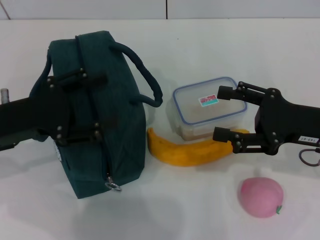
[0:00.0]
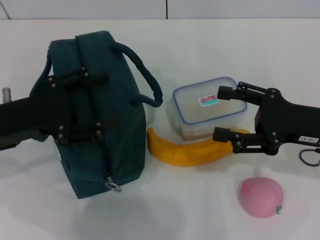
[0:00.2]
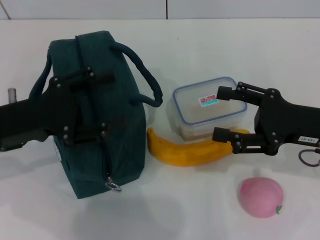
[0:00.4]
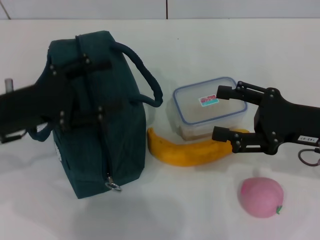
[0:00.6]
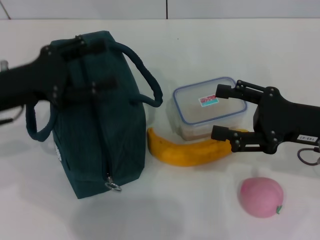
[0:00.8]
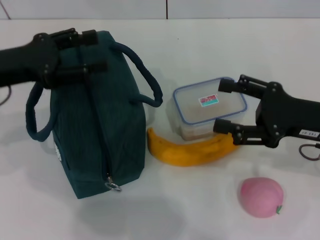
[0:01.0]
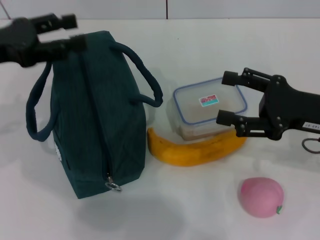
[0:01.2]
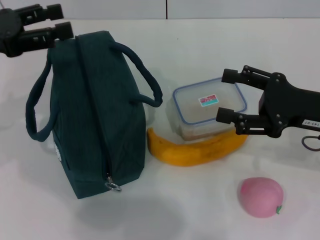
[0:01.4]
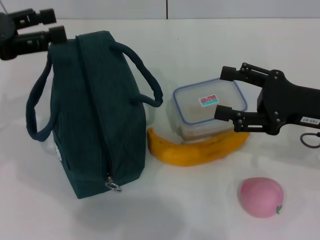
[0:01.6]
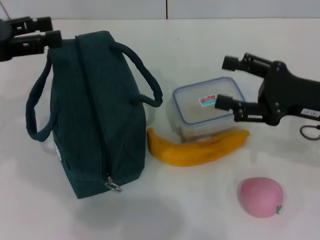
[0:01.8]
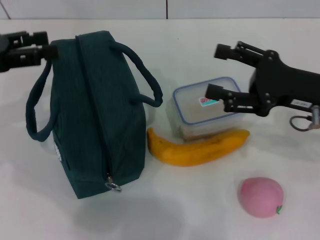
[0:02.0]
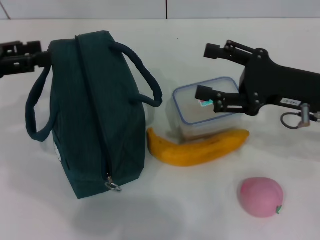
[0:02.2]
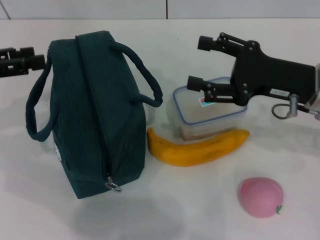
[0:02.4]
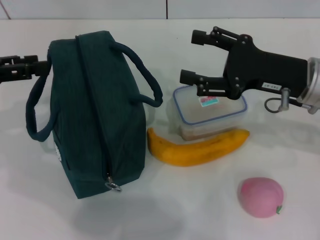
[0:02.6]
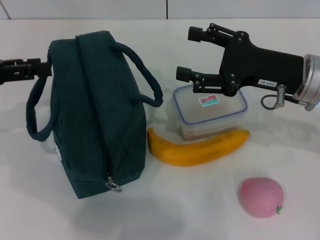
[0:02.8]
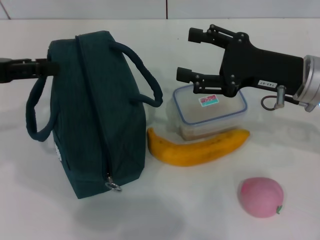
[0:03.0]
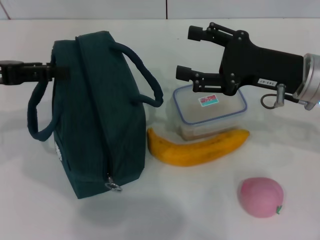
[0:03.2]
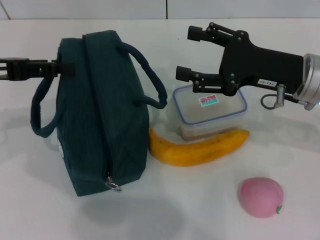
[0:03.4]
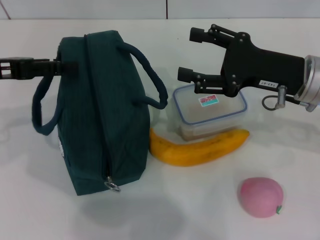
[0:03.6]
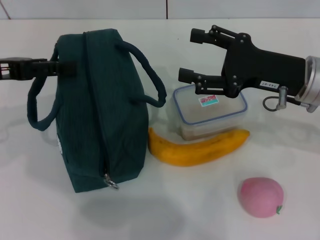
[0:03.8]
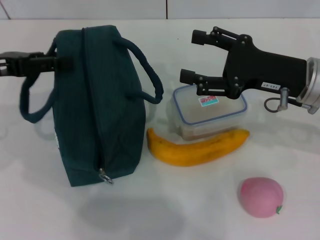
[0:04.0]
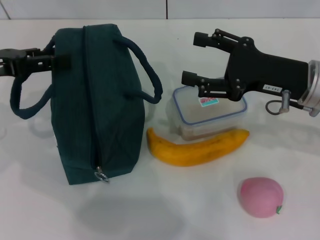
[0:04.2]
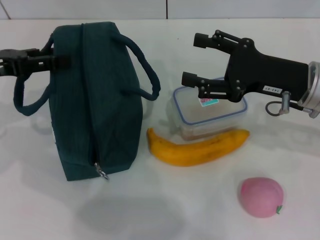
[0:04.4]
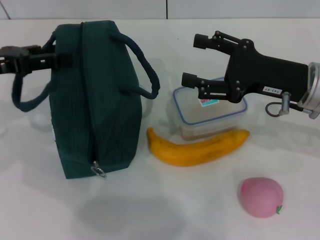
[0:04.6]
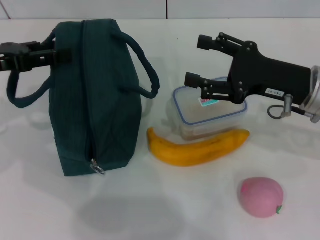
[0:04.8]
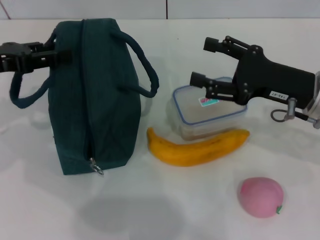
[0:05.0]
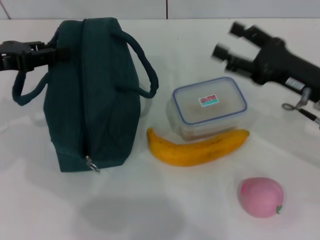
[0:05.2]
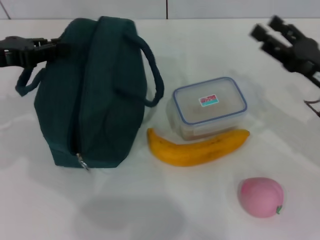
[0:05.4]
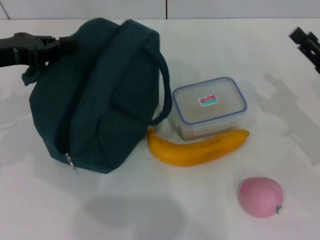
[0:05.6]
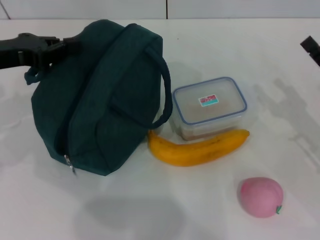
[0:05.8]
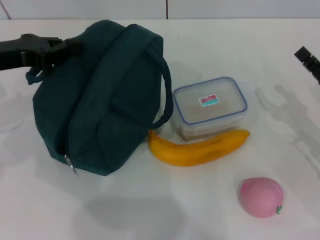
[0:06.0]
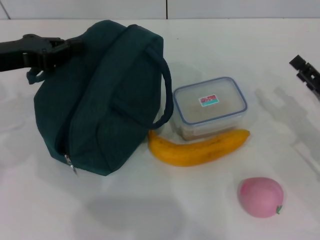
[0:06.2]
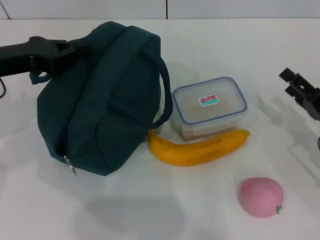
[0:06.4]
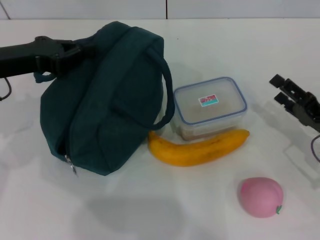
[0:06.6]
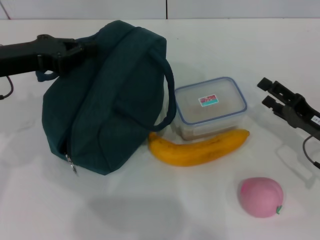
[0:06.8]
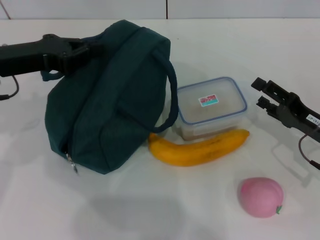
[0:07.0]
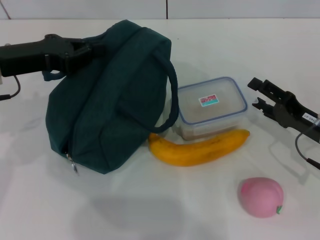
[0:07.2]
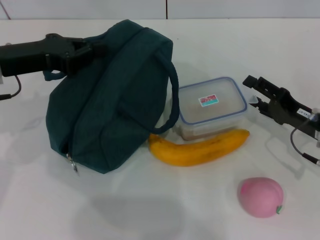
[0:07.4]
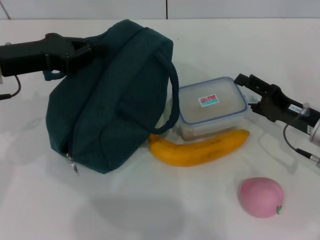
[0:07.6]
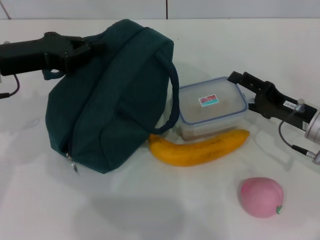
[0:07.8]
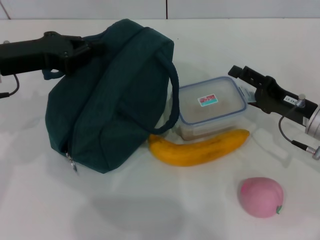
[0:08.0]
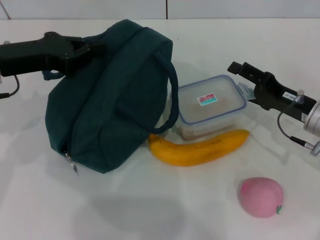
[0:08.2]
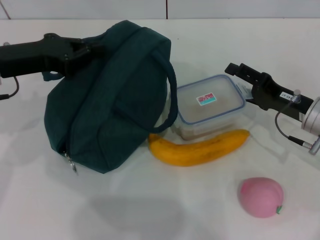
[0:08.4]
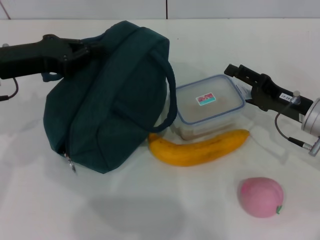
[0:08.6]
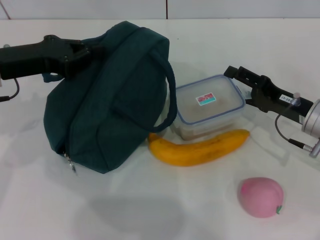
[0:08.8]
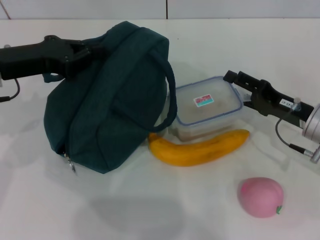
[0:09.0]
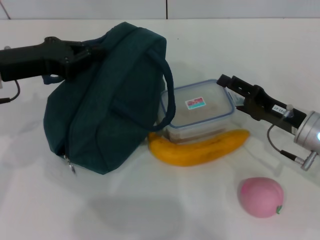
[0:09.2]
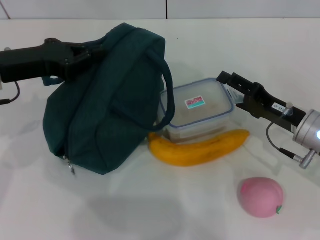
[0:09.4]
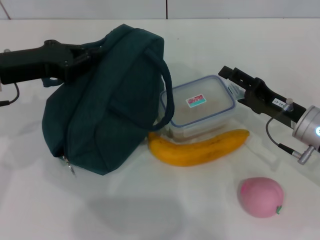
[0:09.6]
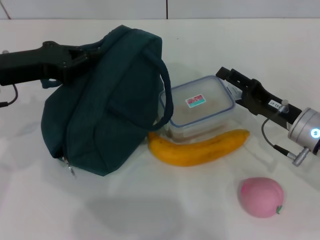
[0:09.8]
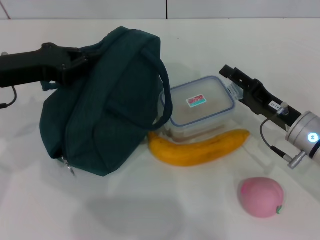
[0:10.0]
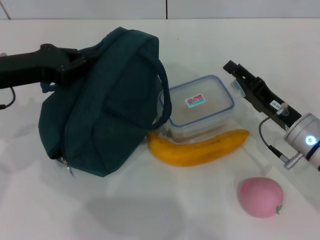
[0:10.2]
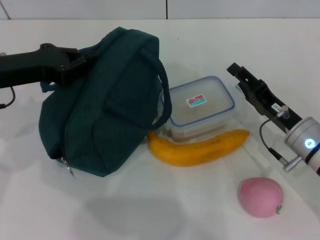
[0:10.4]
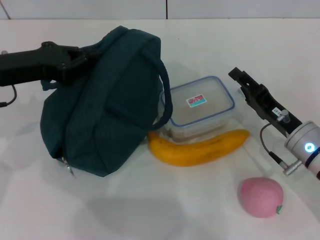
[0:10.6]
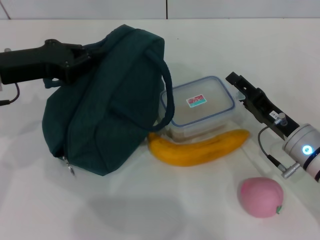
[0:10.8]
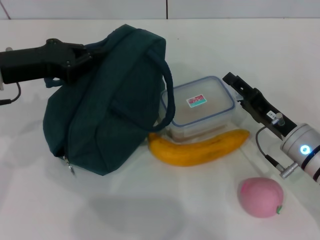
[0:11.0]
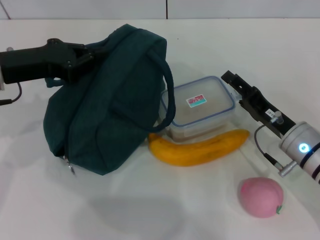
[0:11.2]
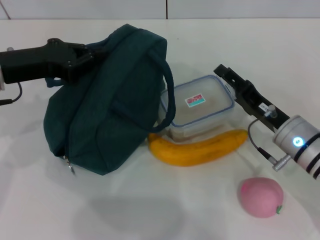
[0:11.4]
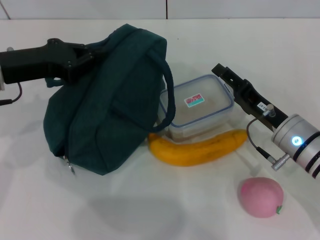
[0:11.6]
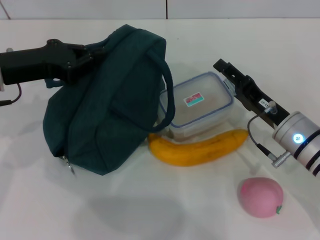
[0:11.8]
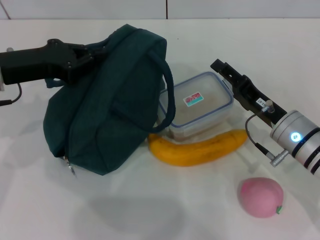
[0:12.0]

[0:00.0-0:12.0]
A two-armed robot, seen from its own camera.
Step, 0:00.0 to 0:07.0: Hold the lunch bag with your left hand.
0:00.0 to 0:01.6: The left gripper travels upward, forward and to the left by about 10 cm.
0:01.6 to 0:03.0: The right gripper ends up about 5 cm from where it was.
0:03.0 to 0:04.4: There are only small adjustments of the grippers.
0:04.4 to 0:06.0: The right gripper shifts approximately 15 cm to the right, downward and backward. The left gripper closes up.
0:06.0 to 0:07.6: The right gripper changes place by roughly 5 cm.
0:07.6 to 0:10.4: The grippers make only small movements.
0:10.4 to 0:12.0: The grippers stay close to where they were, moving slightly.

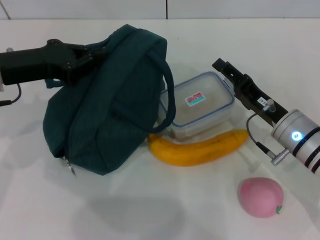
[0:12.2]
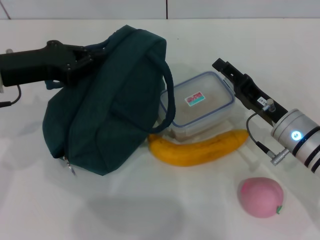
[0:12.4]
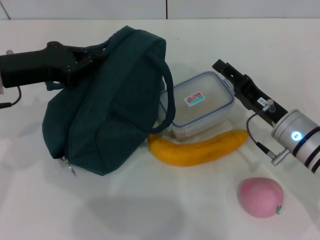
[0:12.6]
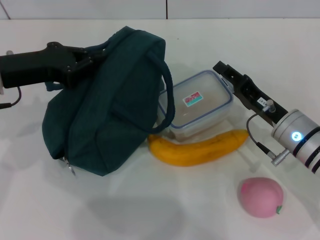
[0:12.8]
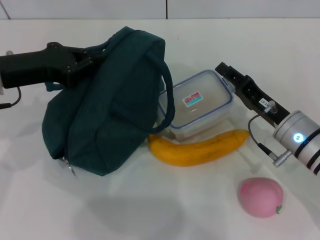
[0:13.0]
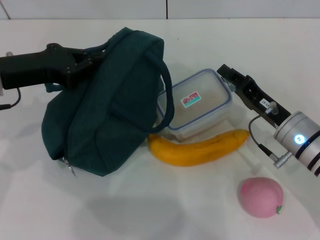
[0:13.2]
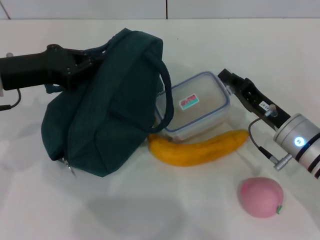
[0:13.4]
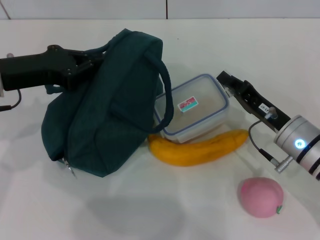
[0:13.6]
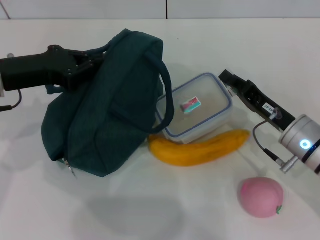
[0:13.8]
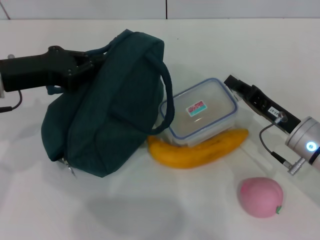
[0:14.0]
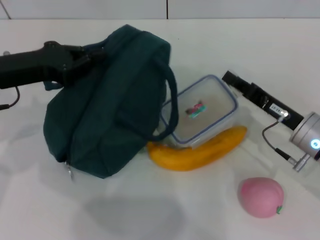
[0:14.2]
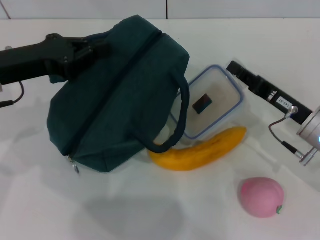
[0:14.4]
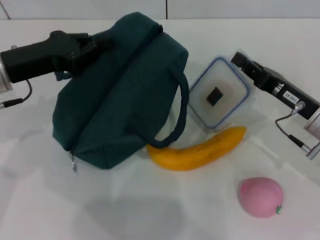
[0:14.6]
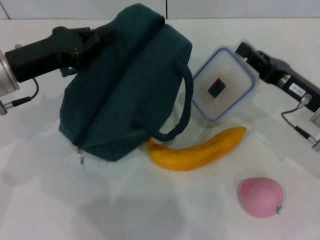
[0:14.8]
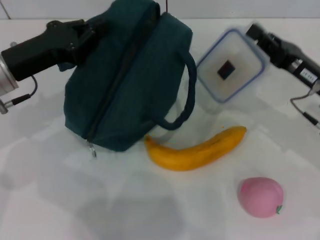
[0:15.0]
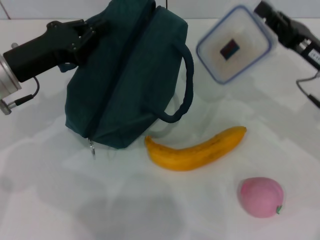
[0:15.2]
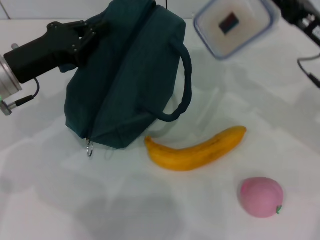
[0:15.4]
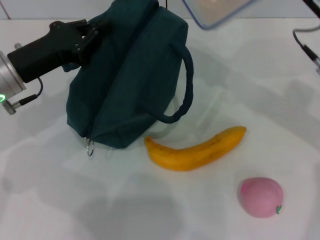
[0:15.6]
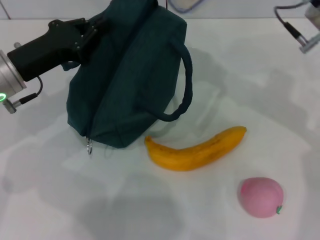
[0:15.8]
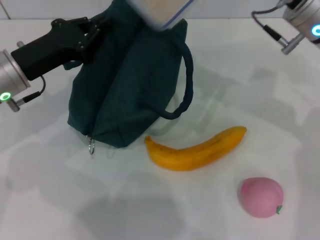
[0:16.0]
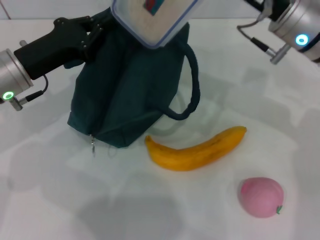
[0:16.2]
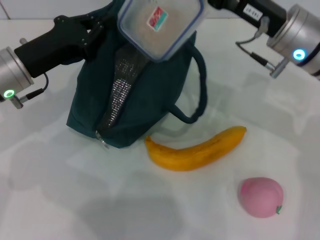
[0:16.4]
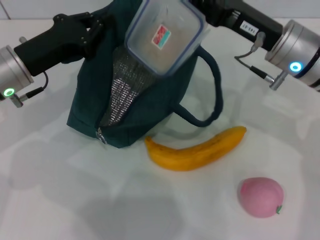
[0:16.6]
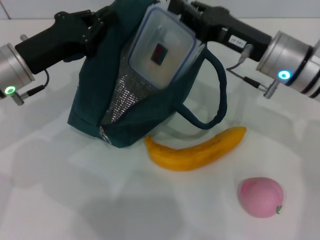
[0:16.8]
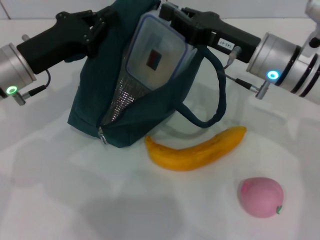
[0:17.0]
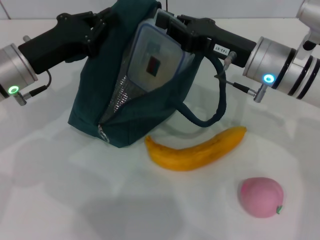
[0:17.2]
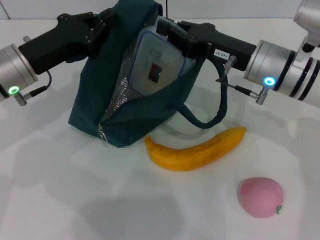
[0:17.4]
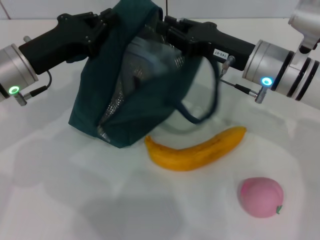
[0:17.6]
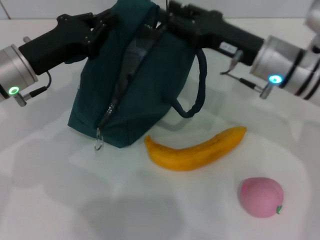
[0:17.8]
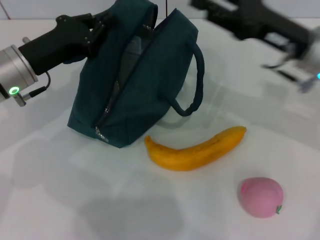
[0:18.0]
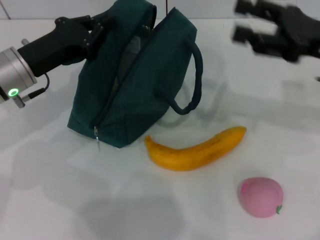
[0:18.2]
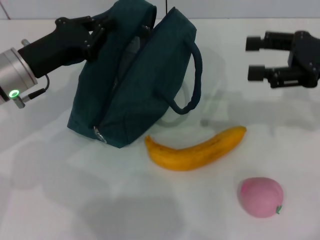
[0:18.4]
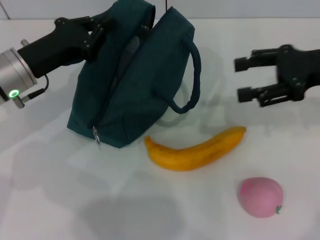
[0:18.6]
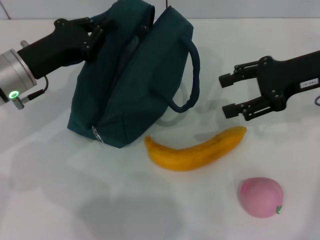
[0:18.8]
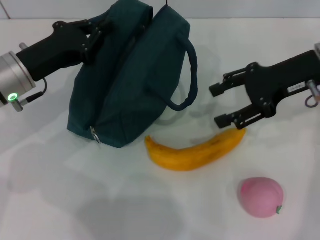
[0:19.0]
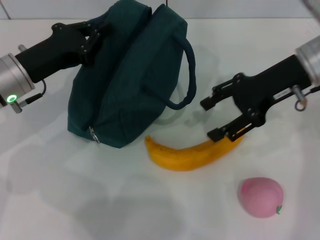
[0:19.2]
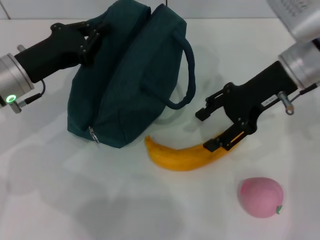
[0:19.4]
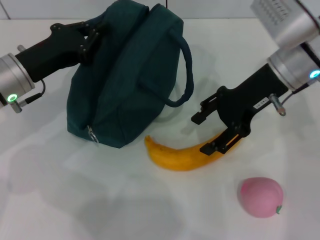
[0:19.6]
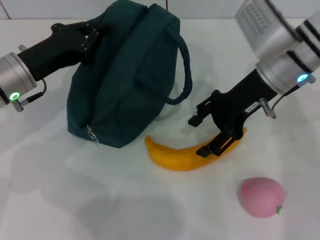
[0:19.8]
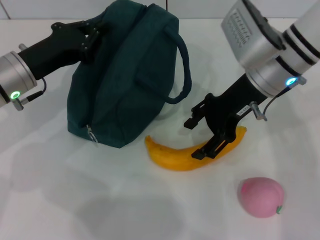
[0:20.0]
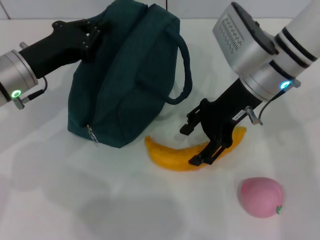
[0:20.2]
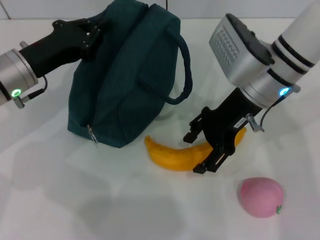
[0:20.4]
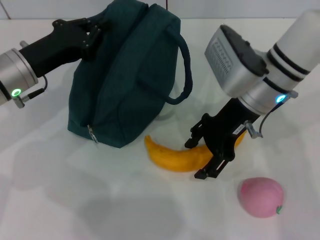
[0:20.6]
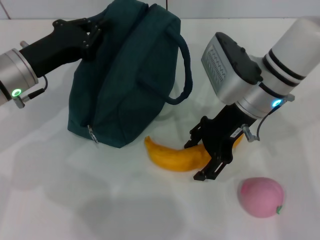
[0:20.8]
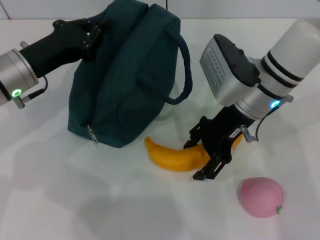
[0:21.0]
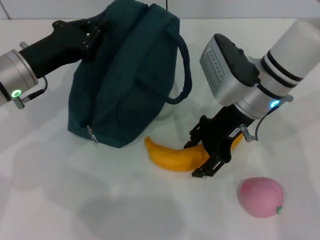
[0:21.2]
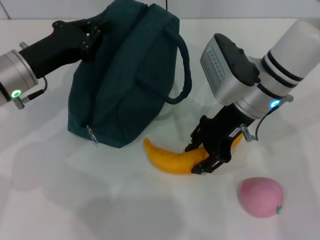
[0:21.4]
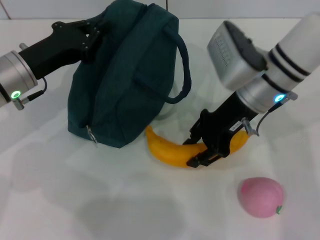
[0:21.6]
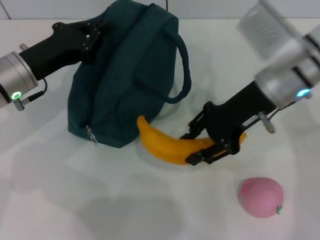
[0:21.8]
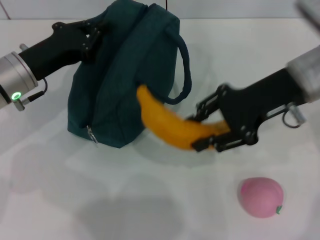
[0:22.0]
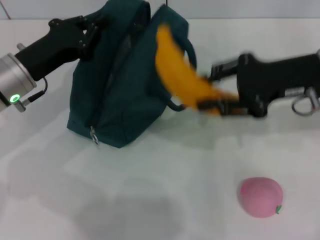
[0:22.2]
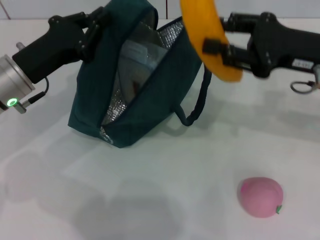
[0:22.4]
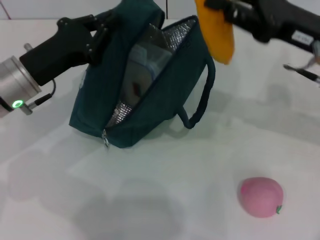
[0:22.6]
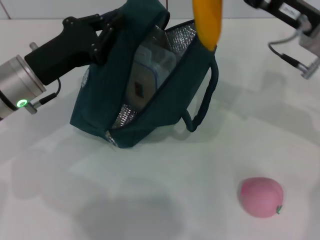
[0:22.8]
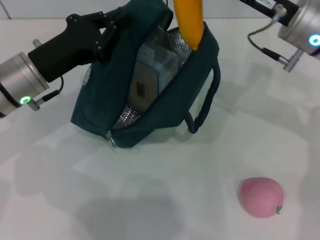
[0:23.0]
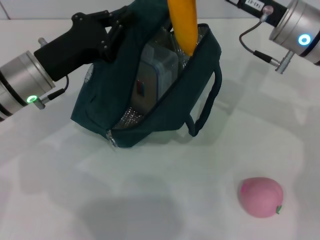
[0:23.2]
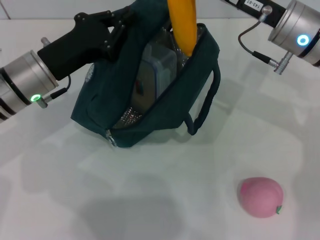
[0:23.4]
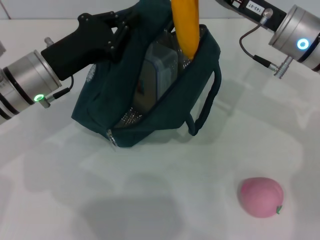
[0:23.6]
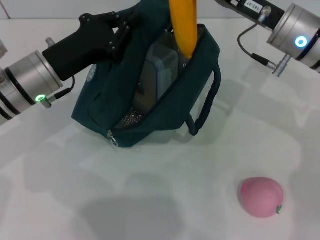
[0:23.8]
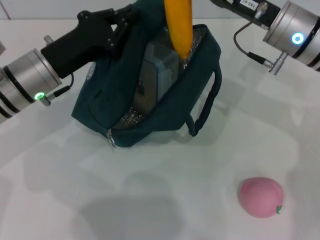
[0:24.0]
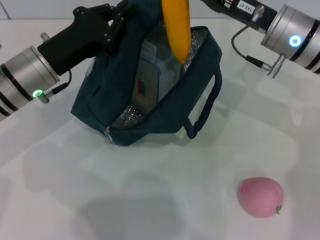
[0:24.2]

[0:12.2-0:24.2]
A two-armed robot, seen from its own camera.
Step, 0:14.0 to 0:17.6: Place the lunch box into the lunch bag with your right hand.
Step, 0:17.8 to 0:21.4: Take the banana with your right hand.
0:12.2 to 0:13.8: The right gripper closes.
0:13.8 to 0:15.2: The right gripper moves upward, some 5 cm.
0:15.2 to 0:16.6: The right gripper moves to the left, some 10 cm.
0:16.6 to 0:18.2: The right gripper travels to the right by about 10 cm, and opens its fingers.
0:18.2 to 0:19.8: The right gripper heads to the left, covering some 10 cm.
0:19.8 to 0:21.2: The grippers move only a little.
0:21.2 to 0:22.6: The right gripper shifts about 10 cm to the right.
0:22.6 to 0:24.2: The right gripper is displaced to the left by about 5 cm.
